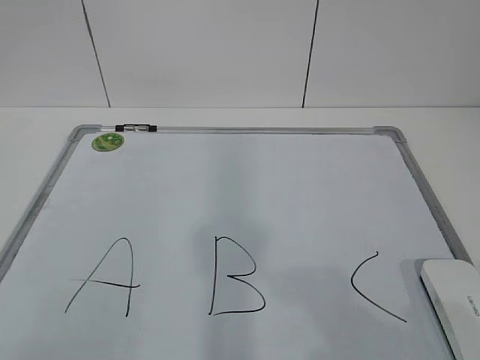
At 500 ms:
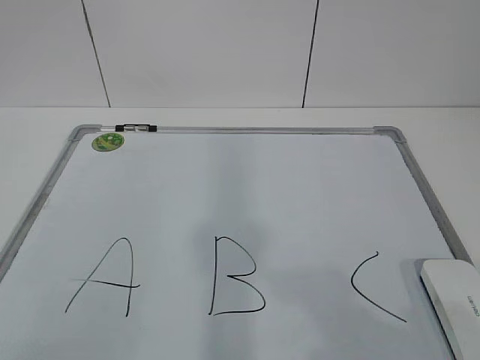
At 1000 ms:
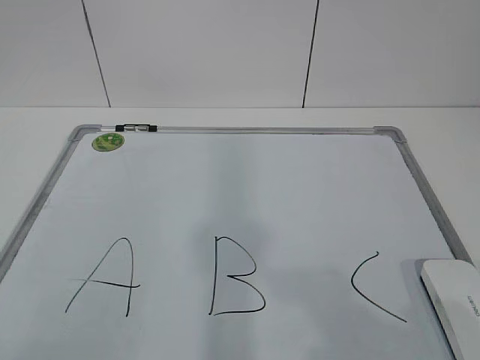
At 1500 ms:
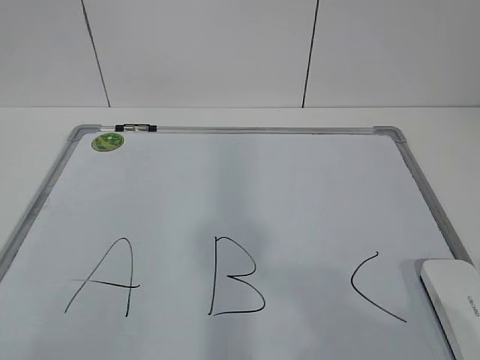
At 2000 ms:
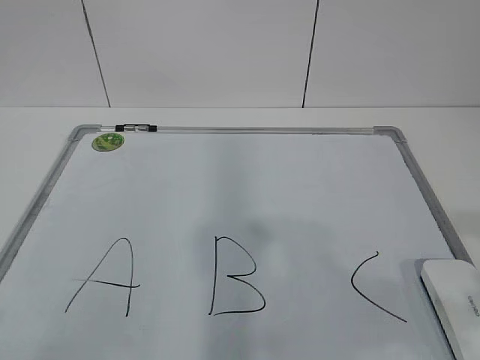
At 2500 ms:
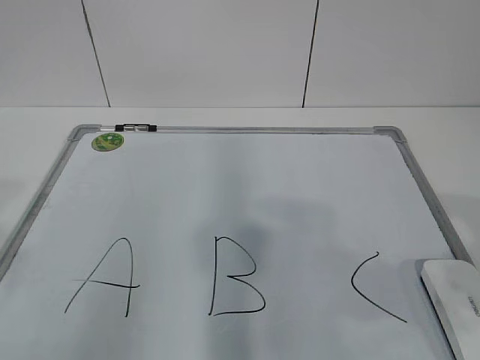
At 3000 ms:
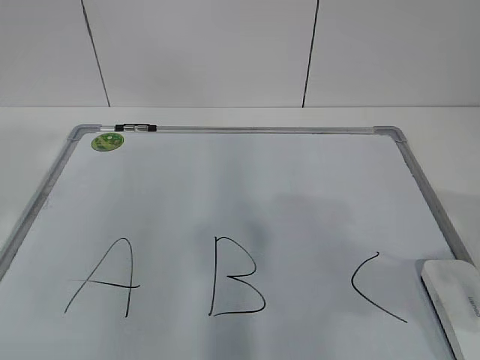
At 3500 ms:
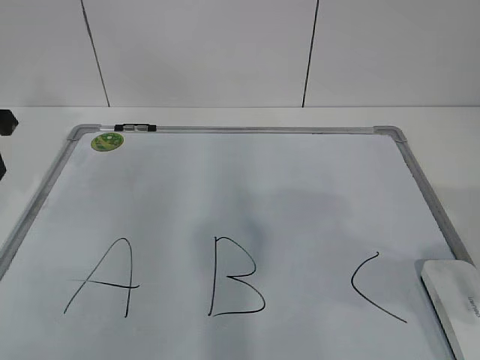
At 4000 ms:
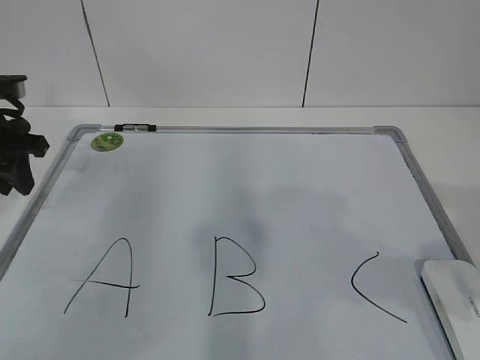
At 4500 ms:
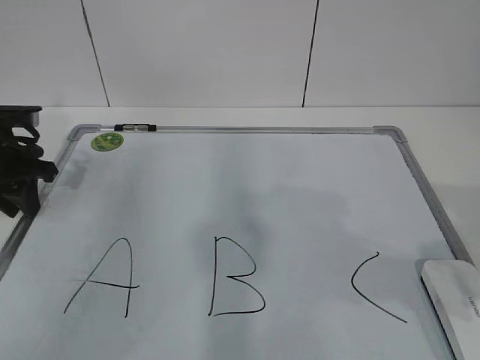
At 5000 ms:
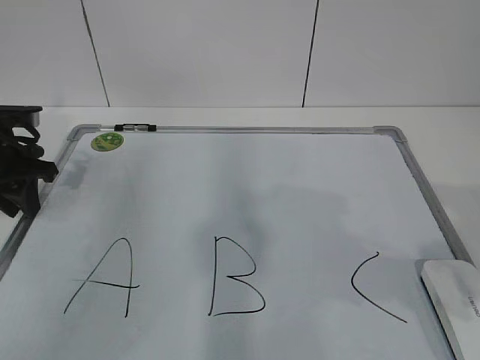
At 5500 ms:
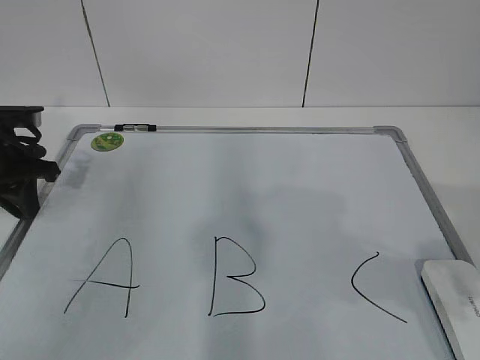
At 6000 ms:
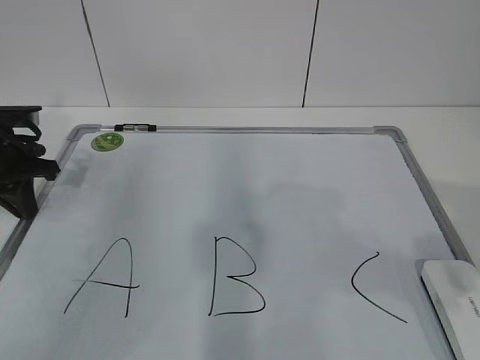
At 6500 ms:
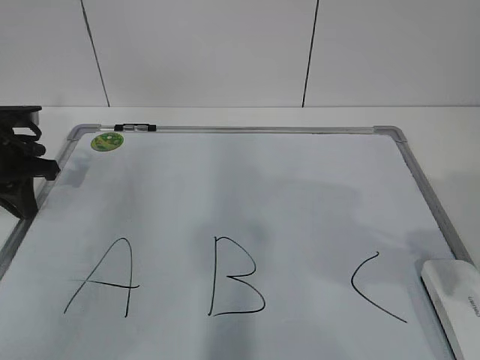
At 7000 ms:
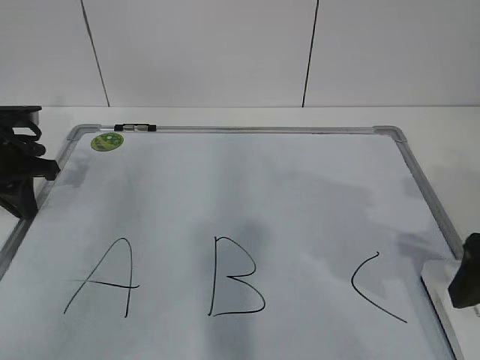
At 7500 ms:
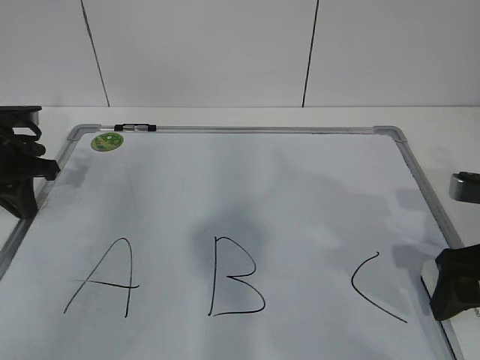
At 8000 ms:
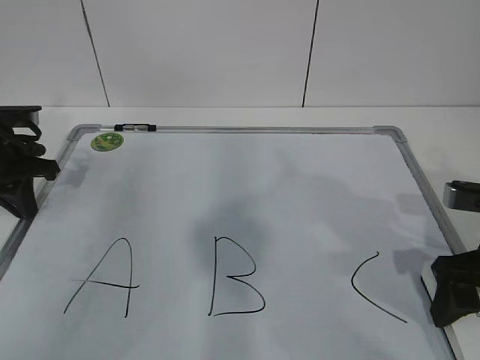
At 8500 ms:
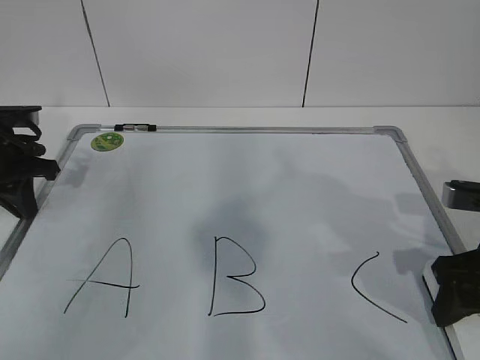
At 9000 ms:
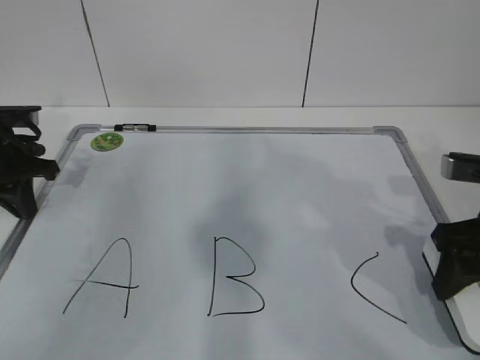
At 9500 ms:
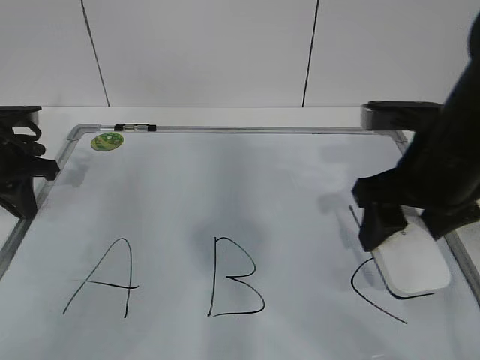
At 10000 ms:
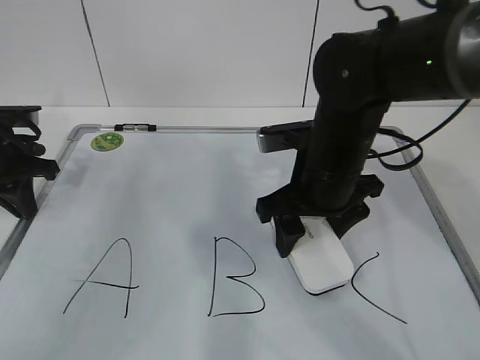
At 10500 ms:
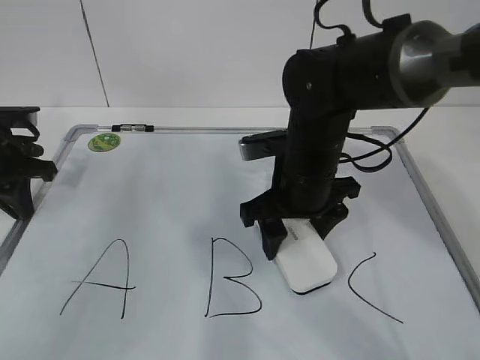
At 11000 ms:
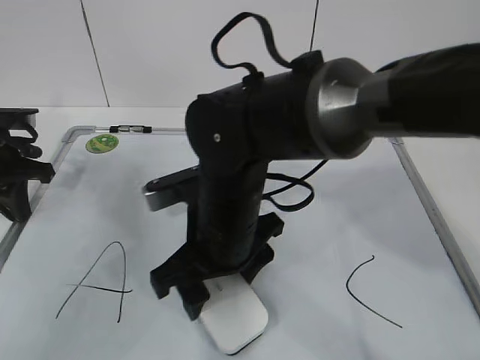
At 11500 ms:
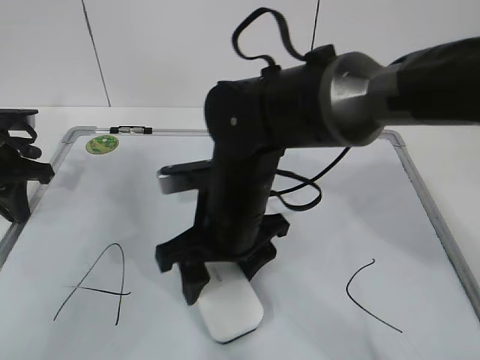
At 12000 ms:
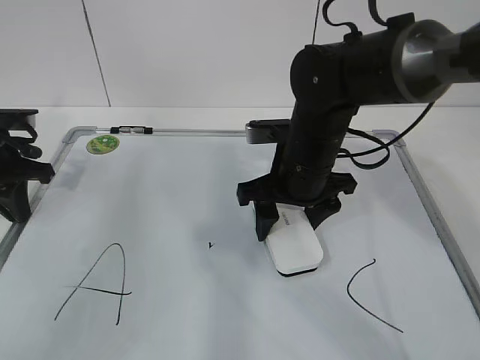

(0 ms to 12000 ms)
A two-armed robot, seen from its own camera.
Task of the whole recording: pick up the eraser on the blackboard and erase the letter "B".
Step, 0 ms - 4500 ms: Hold the drawing board steady with your left hand.
Step, 7000 ms - 11500 ms: Erase the letter B with your right hand.
2000 ms - 4000 ms: The left gripper moves forward, roughly 35 cm.
4000 ms - 6000 ms: The left gripper closes.
6000 ms - 8000 ms: The right gripper is displaced downward and forward by about 15 cm, and opens its fingers.
8000 ms - 10000 ms: The right gripper heads to the left and forward, covering some 20 cm, and closes up.
10000 ms - 12000 ms: The right gripper moves roughly 10 cm to the left and comes back.

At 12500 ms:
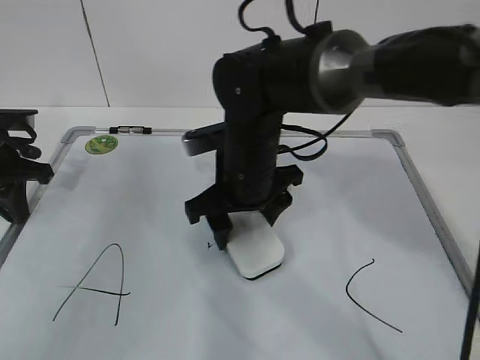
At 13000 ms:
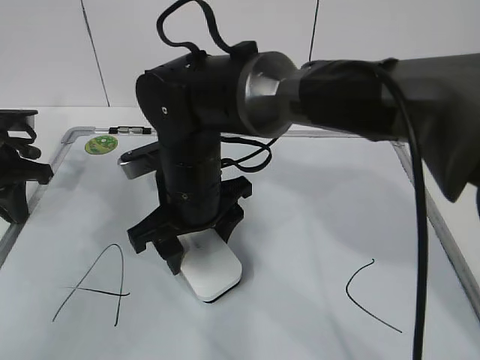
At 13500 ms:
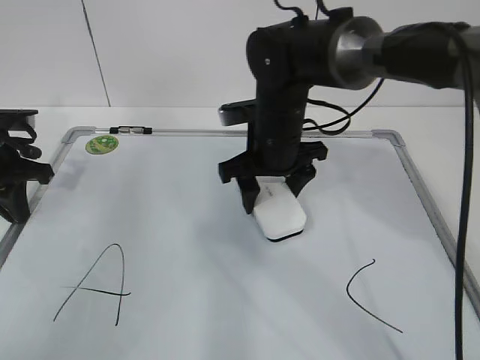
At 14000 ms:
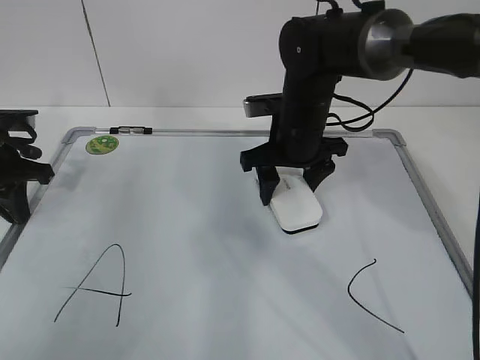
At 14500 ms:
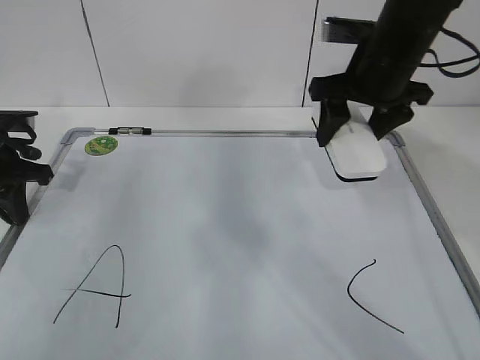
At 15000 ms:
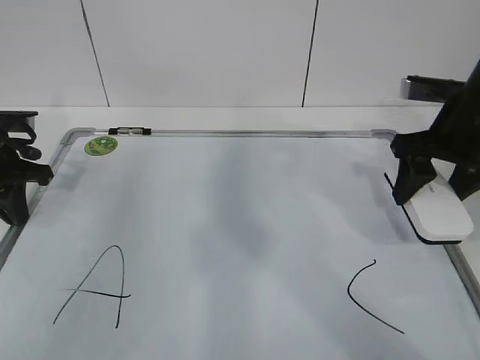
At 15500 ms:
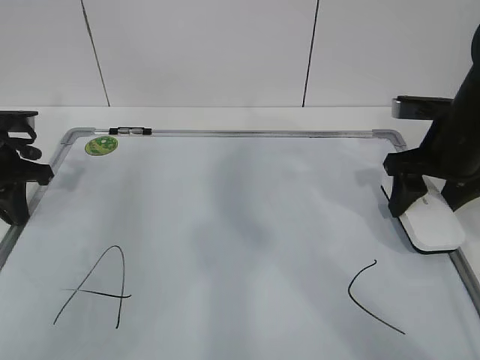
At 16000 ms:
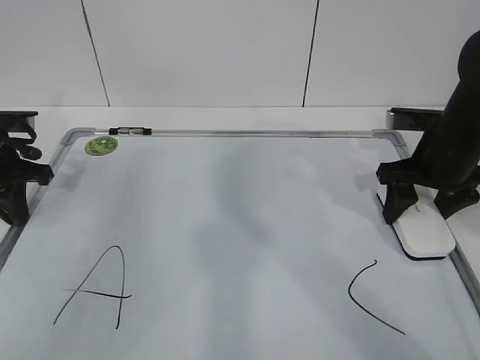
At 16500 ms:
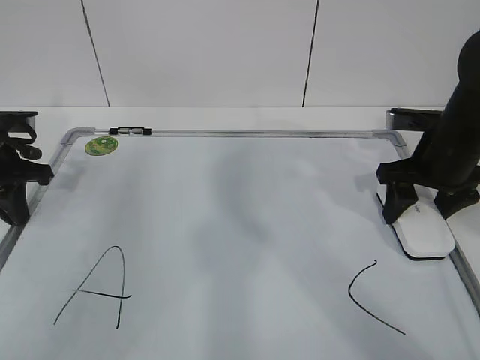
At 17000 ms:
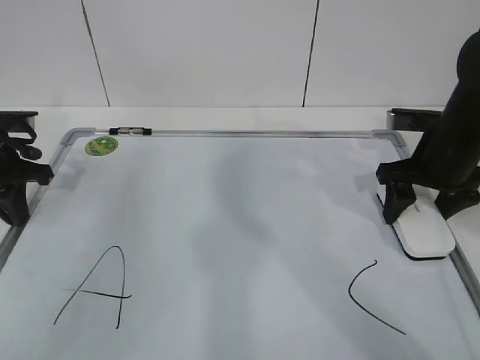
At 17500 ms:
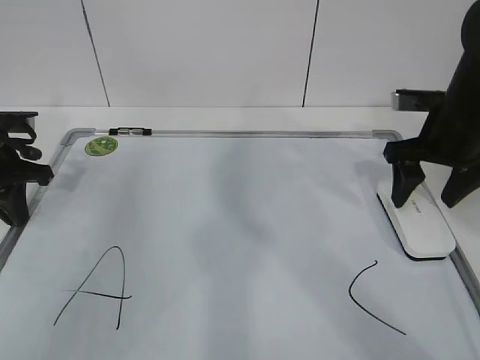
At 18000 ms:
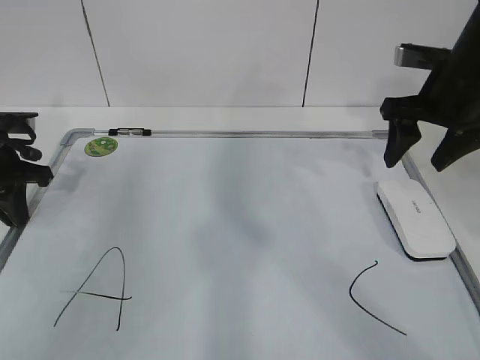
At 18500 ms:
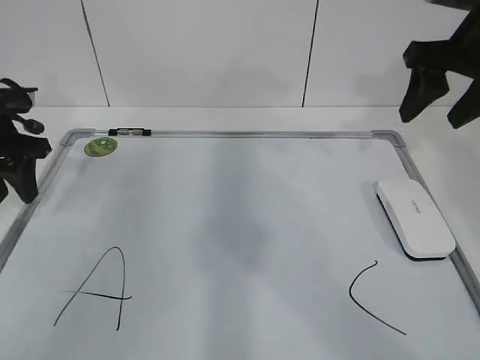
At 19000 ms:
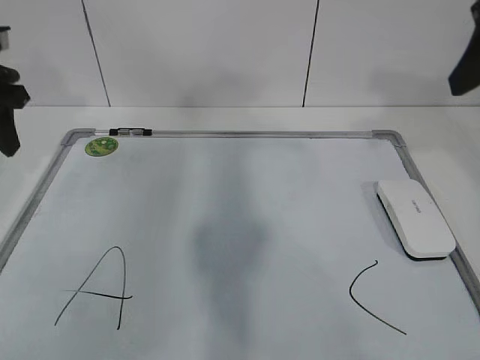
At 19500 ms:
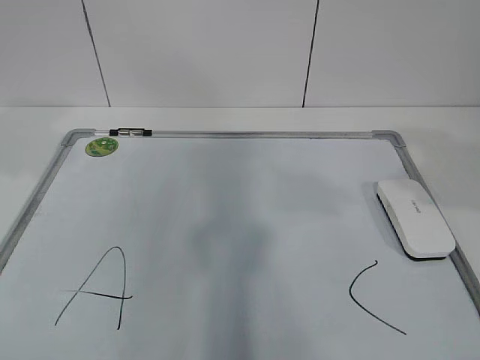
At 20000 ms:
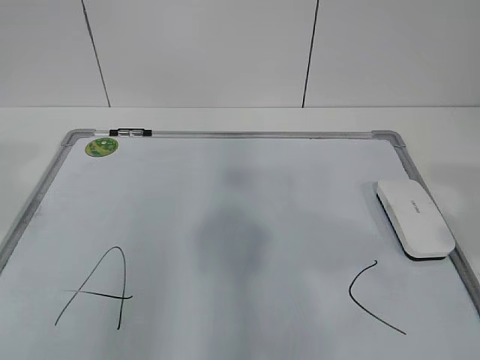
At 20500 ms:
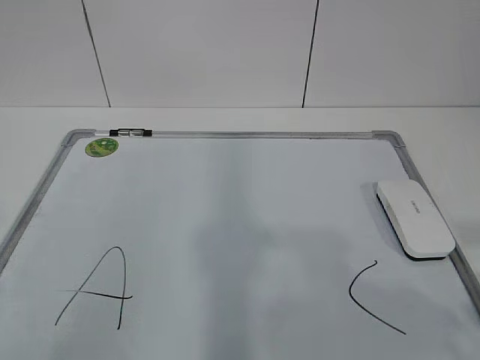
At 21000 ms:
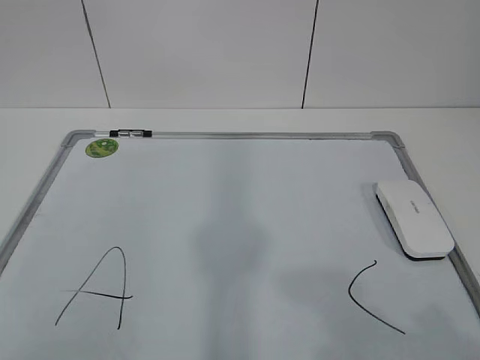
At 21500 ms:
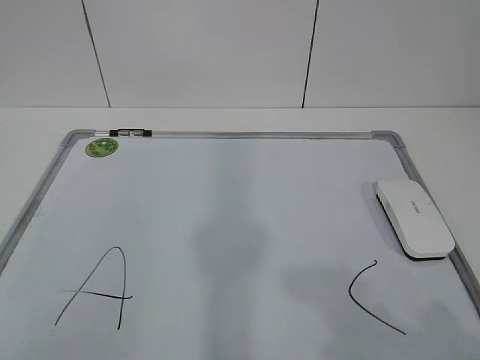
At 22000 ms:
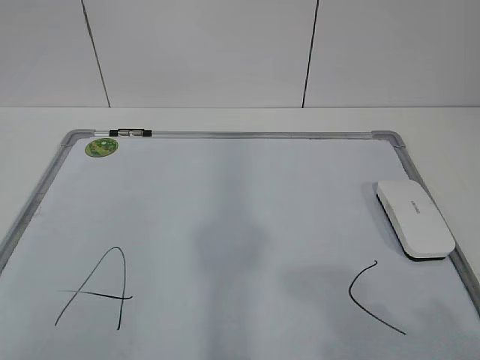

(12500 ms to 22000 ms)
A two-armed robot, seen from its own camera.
Task of the whole recording: pick up the eraser on the blackboard and erase the letter "B".
Step, 12500 ms - 14000 ms: Put down the eraser with your right hand.
12500 ms - 14500 ms: The right gripper travels to the right and upward by roughly 20 cm.
14500 ms - 16500 ms: The right gripper travels downward and to the right by about 10 cm.
16500 ms - 18000 ms: The right gripper goes some 5 cm upward, and opens up.
18000 ms - 20000 ms: The right gripper goes roughly 30 cm backward. The left gripper shifts approximately 30 cm backward and upward, and opens up.
20000 ms - 22000 ms: The right gripper heads backward and downward, covering roughly 15 cm.

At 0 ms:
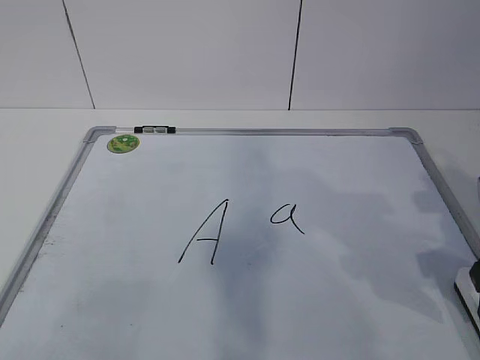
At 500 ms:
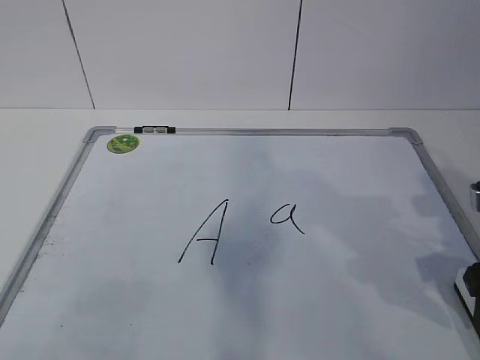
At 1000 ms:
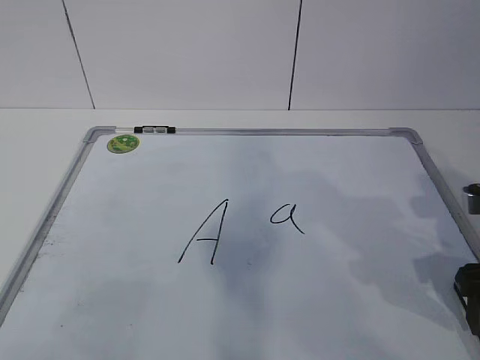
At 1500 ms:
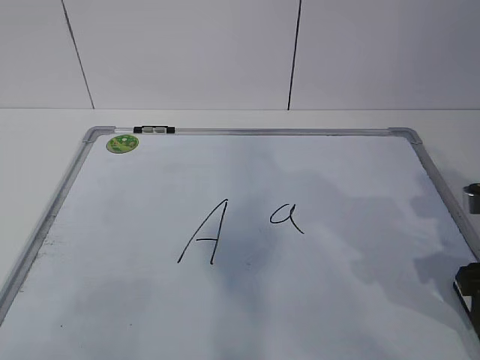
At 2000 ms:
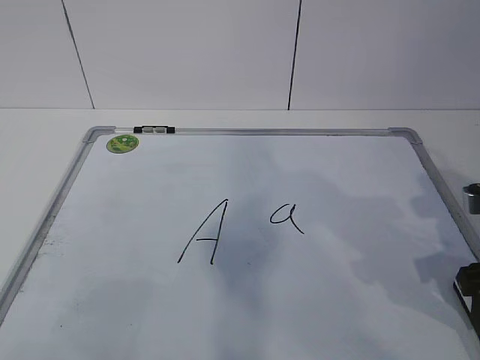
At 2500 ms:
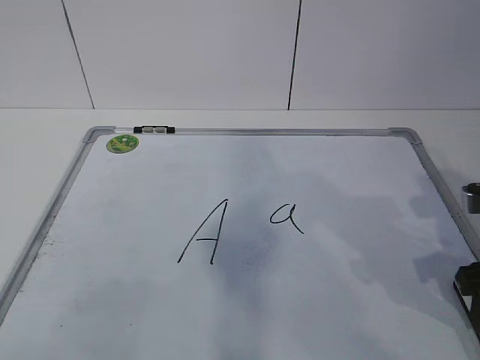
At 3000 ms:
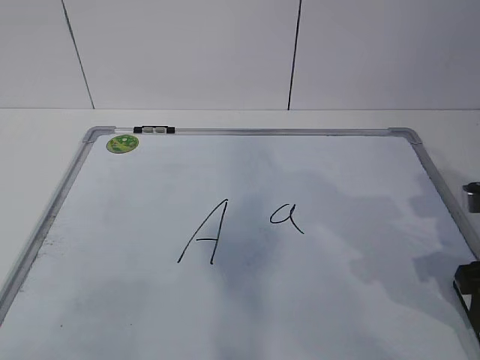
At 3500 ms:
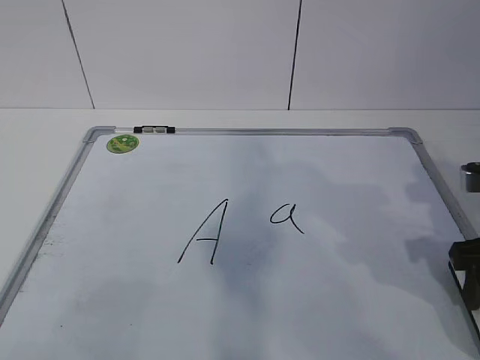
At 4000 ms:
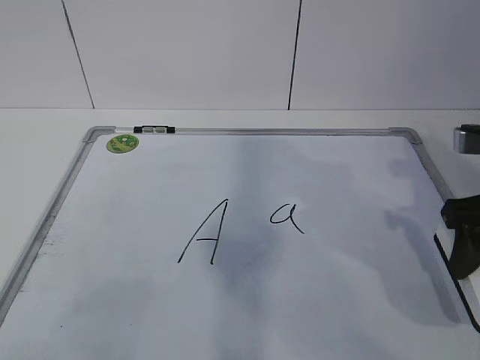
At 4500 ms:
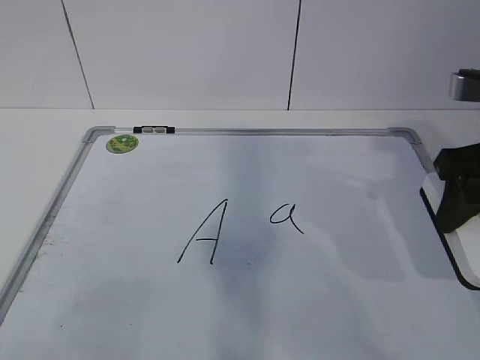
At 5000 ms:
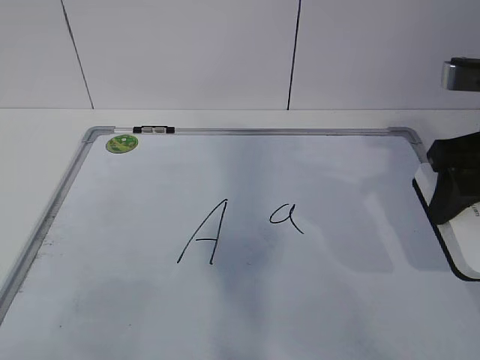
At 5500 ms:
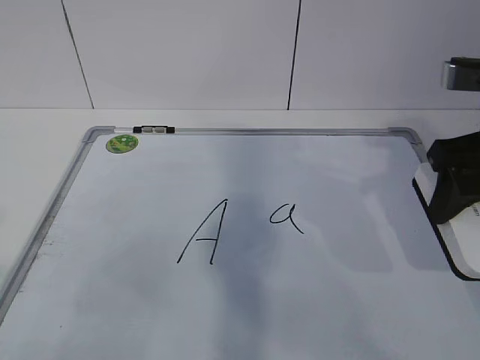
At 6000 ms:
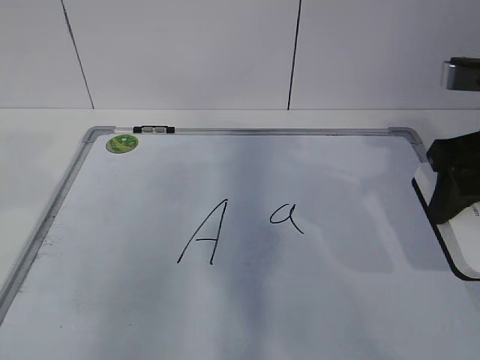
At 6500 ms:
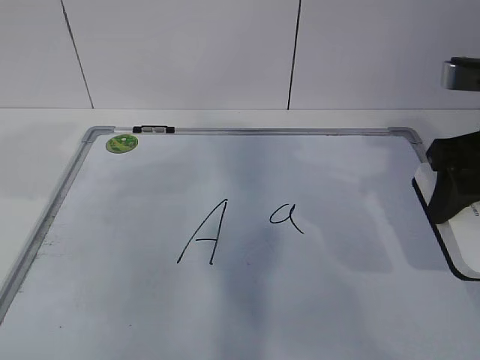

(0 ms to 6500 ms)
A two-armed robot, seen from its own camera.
Task of the whole recording: pick up the eraser on the blackboard and erase the letter "a".
0 ms - 2000 ms: The right gripper closes up.
2000 ms - 4500 ms: The right gripper travels upward by approximately 10 cm.
